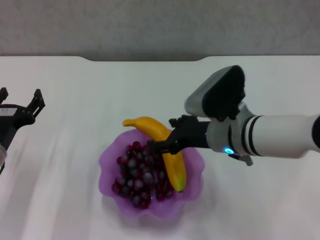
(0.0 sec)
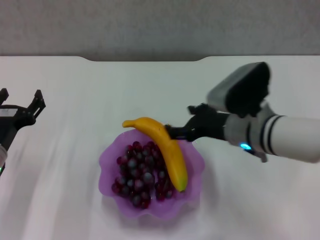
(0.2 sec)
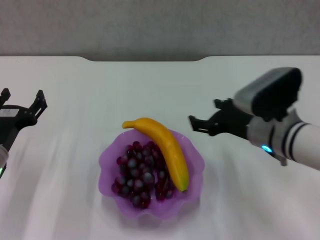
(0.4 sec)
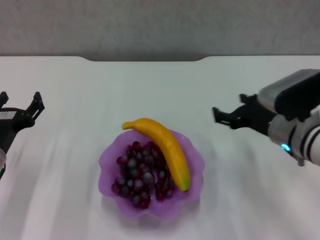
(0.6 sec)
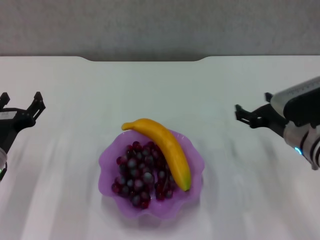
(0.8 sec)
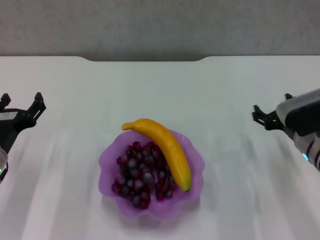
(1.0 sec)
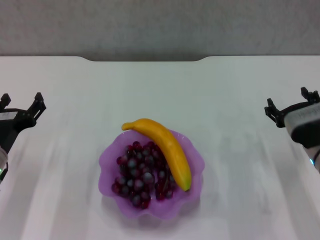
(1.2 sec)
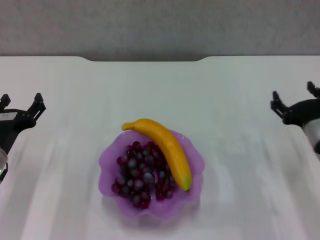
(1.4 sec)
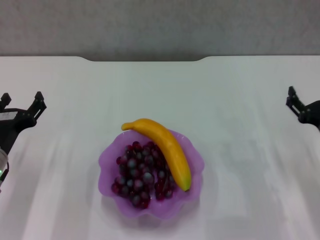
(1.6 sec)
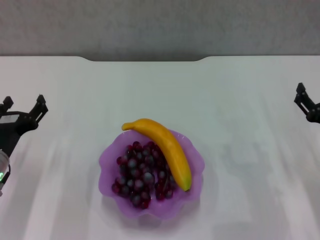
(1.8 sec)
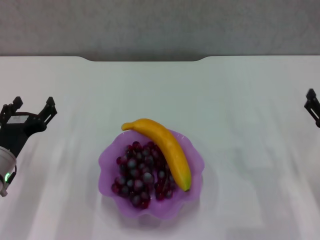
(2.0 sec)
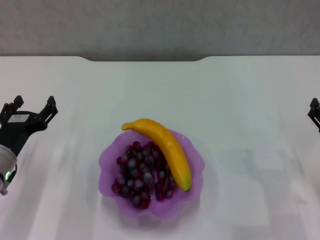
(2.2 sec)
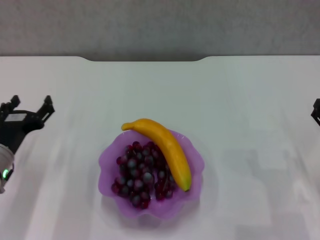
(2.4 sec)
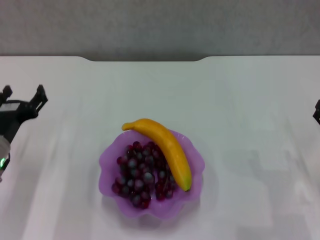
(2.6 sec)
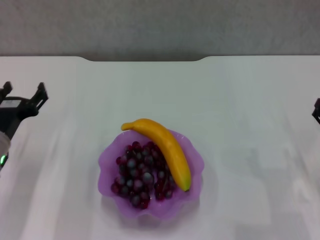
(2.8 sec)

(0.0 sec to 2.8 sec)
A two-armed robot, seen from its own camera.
0.0 sec - 1.4 sec: The right gripper goes some 15 cm to the right.
1.4 sec - 2.8 sec: The right gripper travels to the right by approximately 5 cm.

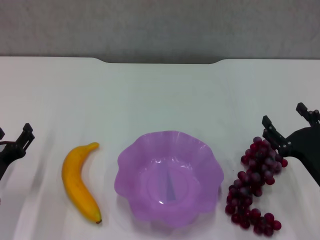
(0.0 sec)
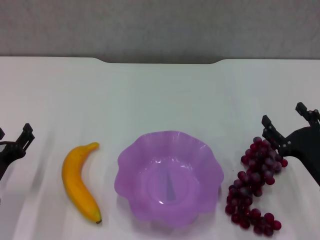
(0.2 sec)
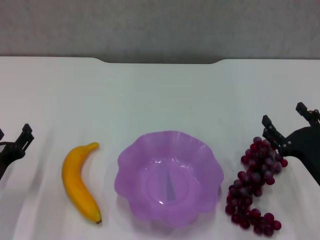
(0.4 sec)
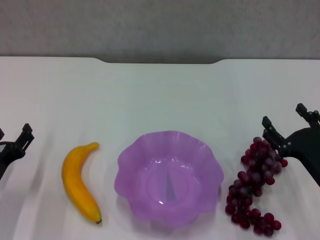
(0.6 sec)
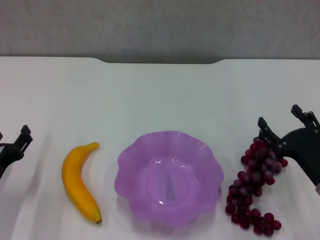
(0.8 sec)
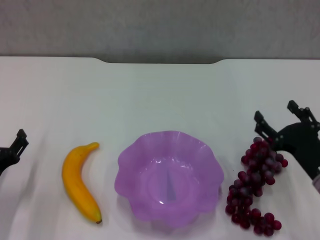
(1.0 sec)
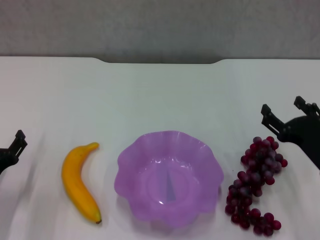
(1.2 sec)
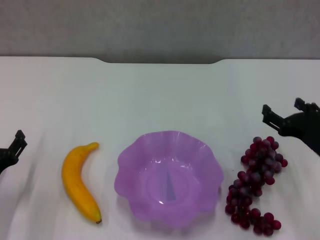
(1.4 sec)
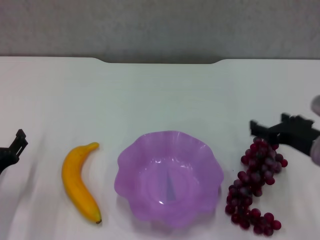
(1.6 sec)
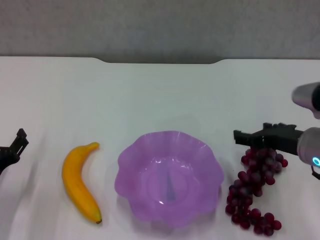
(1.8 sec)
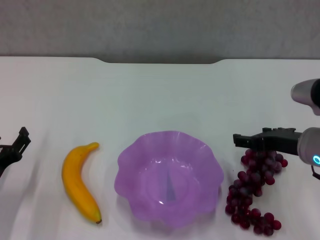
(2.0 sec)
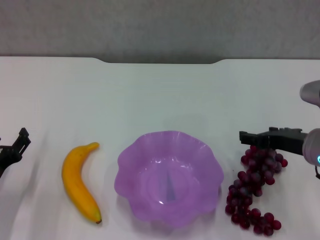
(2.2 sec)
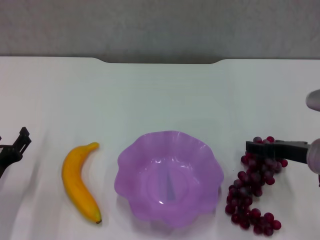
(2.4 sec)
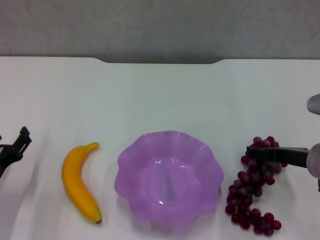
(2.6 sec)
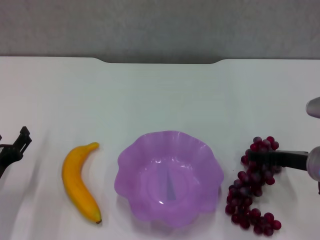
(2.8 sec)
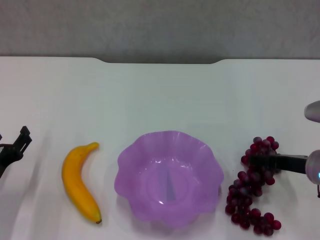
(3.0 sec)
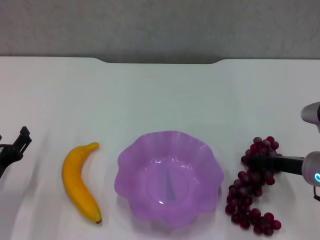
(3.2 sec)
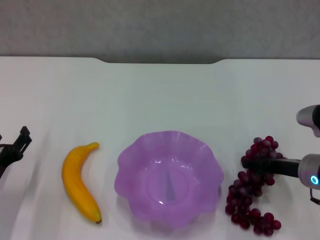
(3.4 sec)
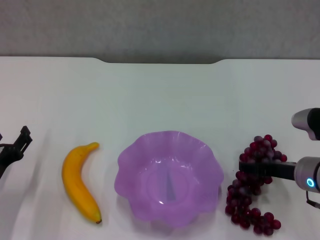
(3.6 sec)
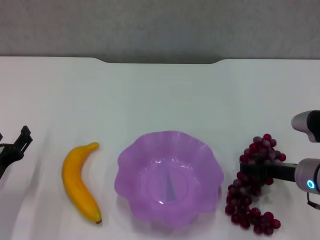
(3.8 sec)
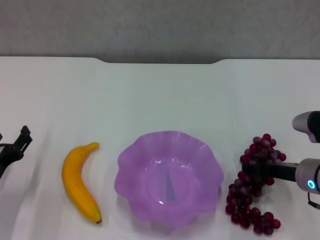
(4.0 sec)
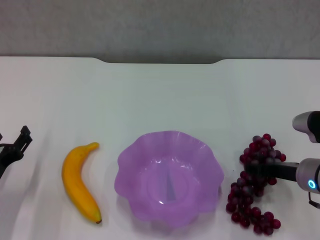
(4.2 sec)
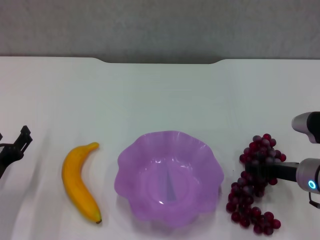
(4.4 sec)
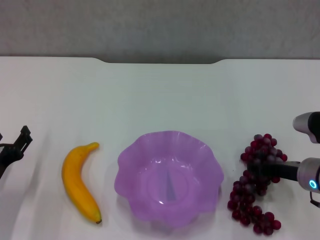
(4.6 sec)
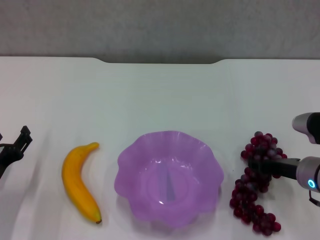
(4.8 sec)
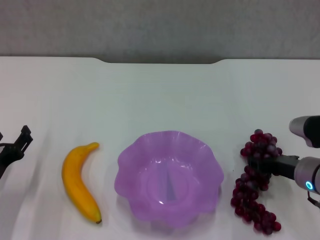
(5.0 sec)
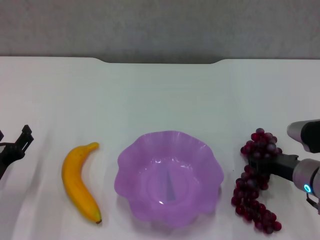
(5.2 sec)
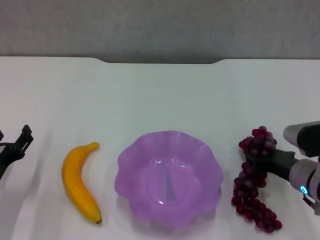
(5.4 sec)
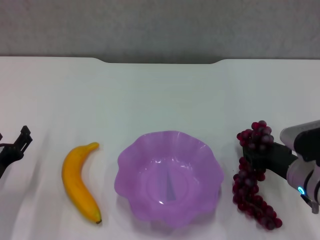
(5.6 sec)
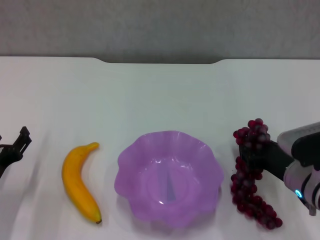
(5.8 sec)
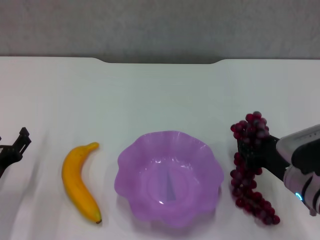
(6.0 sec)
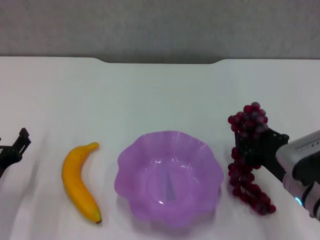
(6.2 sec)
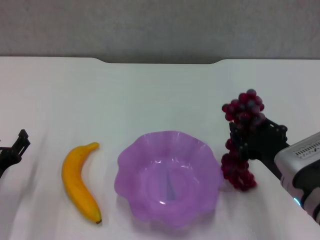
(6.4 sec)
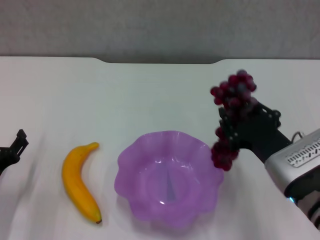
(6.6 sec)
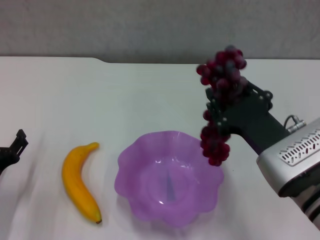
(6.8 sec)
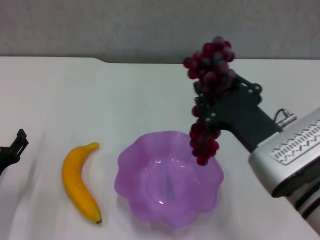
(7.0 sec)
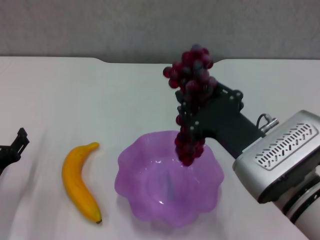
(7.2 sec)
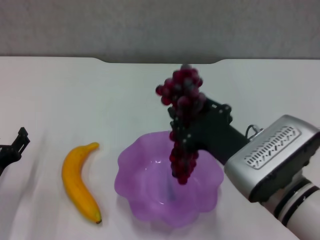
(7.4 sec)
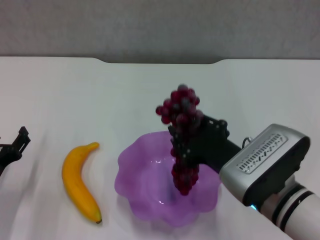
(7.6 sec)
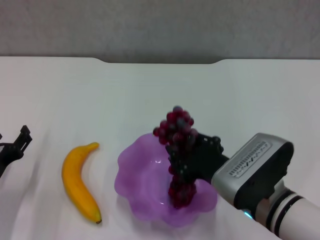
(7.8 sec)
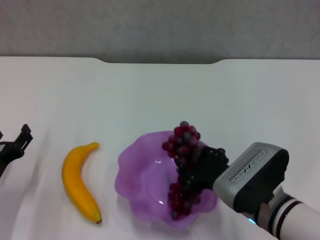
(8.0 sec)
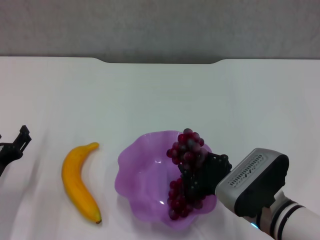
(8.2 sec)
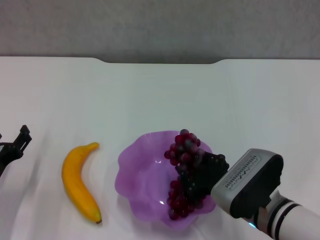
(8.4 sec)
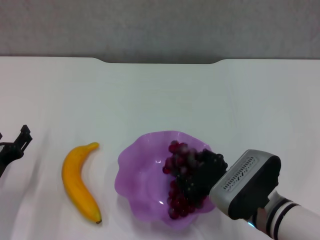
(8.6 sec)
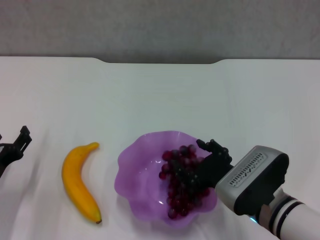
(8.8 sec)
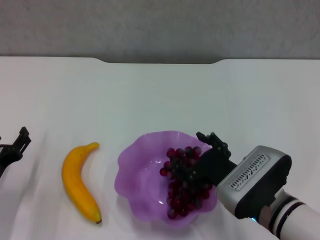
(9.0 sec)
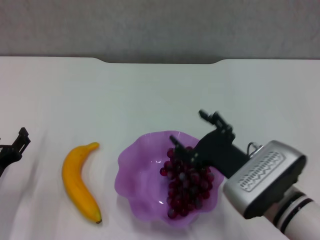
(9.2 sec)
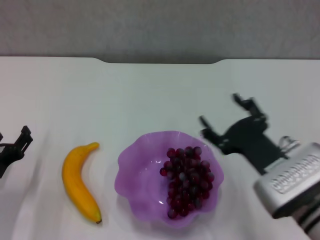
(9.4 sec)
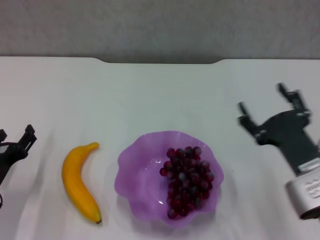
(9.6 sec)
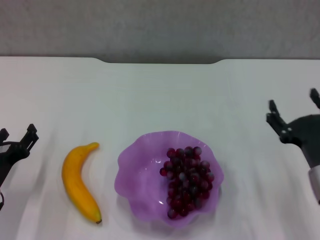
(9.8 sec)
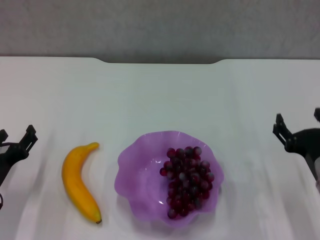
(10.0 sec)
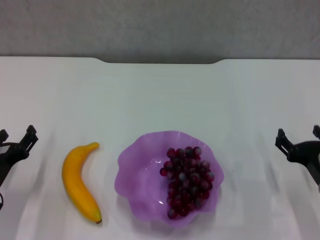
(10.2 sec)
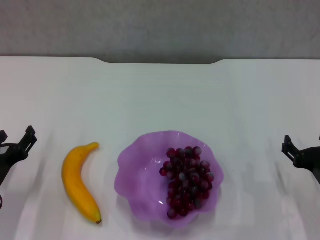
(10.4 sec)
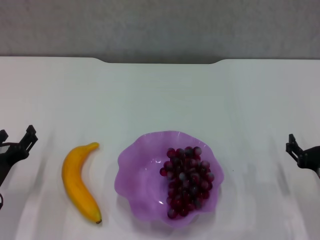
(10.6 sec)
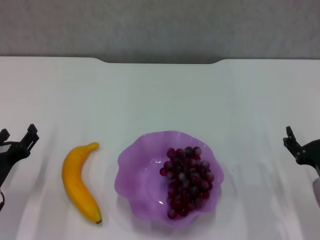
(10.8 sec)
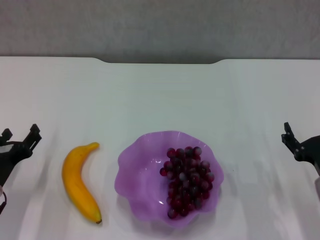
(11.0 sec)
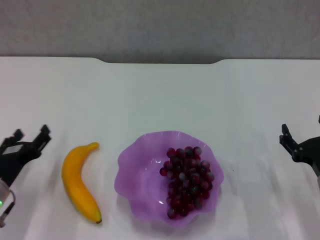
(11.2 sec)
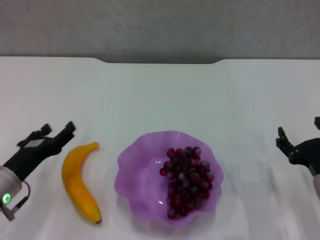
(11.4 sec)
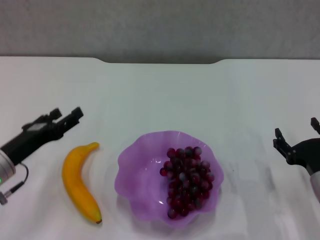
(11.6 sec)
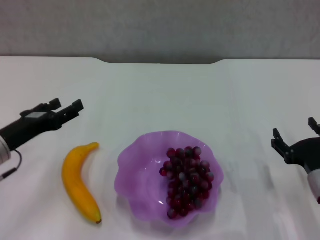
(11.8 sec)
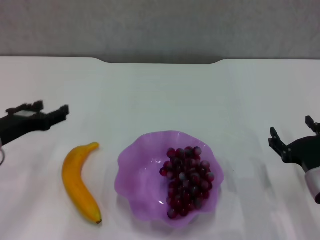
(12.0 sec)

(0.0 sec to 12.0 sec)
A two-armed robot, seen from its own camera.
Step, 0.0 sec - 4.6 sec: Grasp the grape with right gripper.
Step, 4.8 sec - 9.0 sec: Place the grape in the purple plate with right gripper.
0.0 sec - 1.6 sec: The right gripper is displaced upward by approximately 10 cm.
3.0 sec - 4.4 sec: The grippers move only a little.
4.4 sec - 6.0 sec: The right gripper closes up.
6.0 sec - 7.6 sec: The right gripper moves to the left and upward, roughly 10 cm.
7.6 sec - 9.0 sec: The right gripper is displaced downward by about 5 cm, and opens up.
9.0 sec - 10.4 sec: The right gripper moves to the right, roughly 10 cm.
10.4 sec - 12.0 sec: The left gripper is displaced upward and forward by approximately 10 cm.

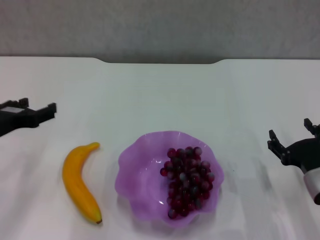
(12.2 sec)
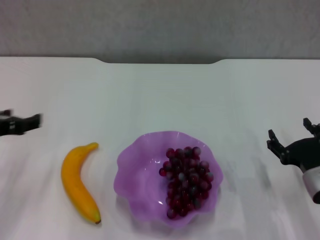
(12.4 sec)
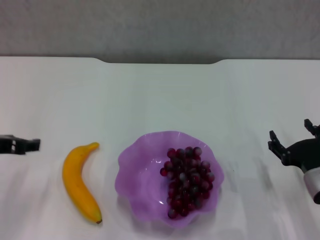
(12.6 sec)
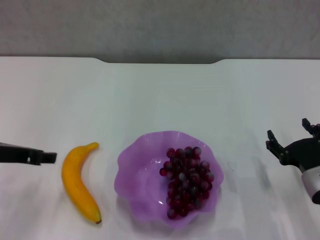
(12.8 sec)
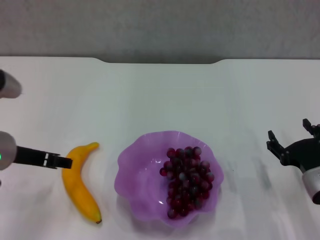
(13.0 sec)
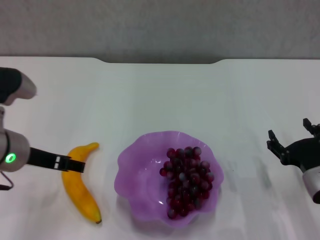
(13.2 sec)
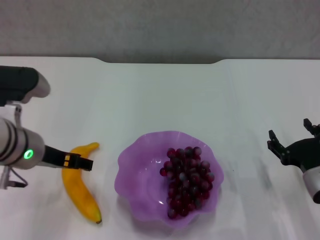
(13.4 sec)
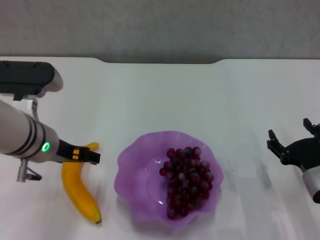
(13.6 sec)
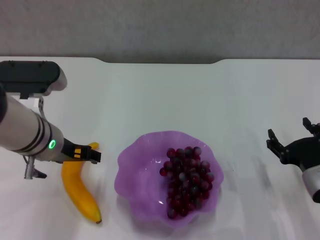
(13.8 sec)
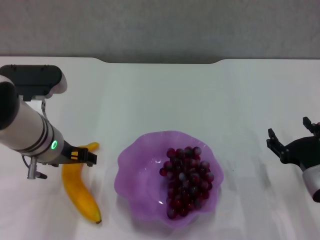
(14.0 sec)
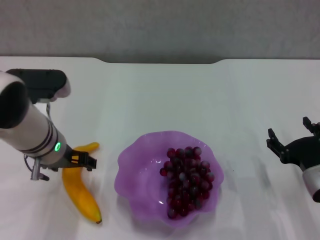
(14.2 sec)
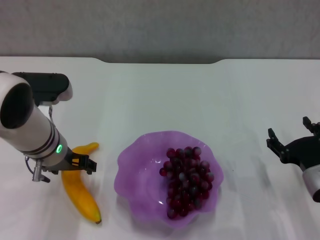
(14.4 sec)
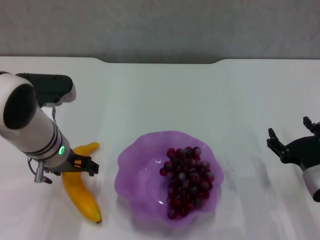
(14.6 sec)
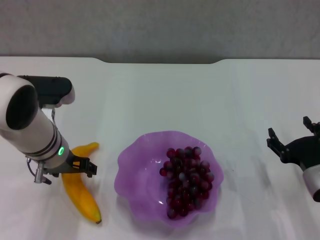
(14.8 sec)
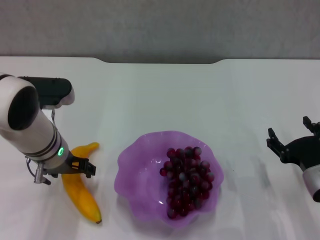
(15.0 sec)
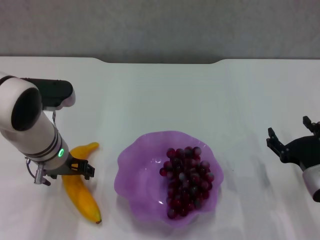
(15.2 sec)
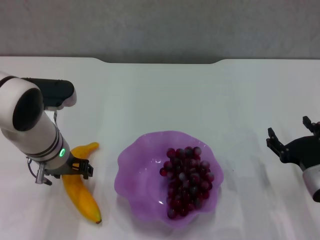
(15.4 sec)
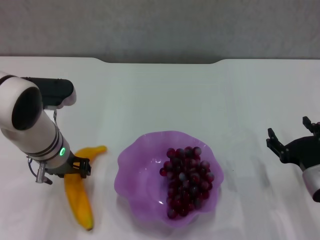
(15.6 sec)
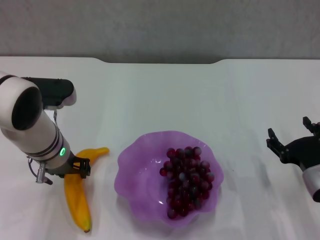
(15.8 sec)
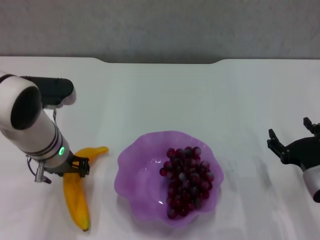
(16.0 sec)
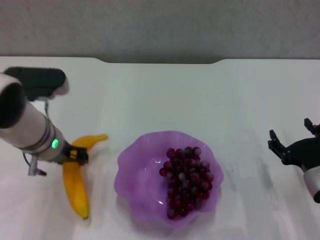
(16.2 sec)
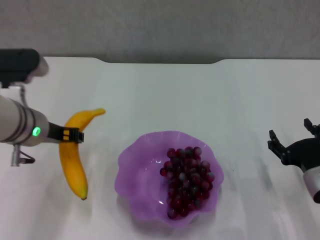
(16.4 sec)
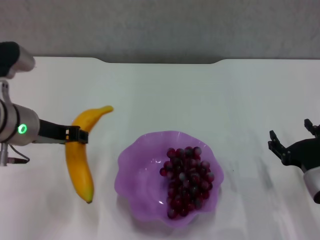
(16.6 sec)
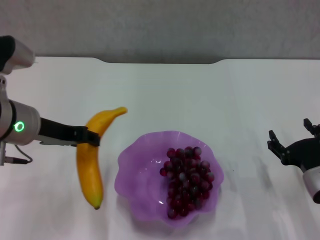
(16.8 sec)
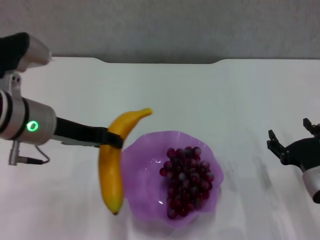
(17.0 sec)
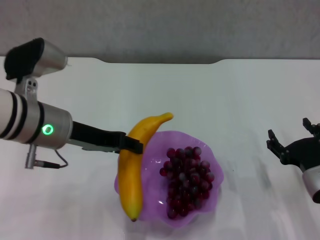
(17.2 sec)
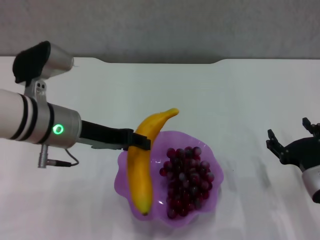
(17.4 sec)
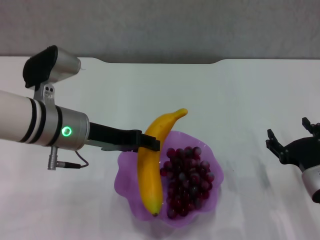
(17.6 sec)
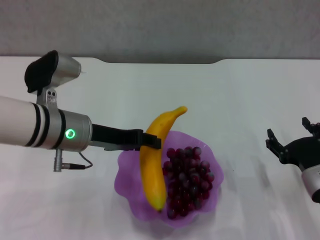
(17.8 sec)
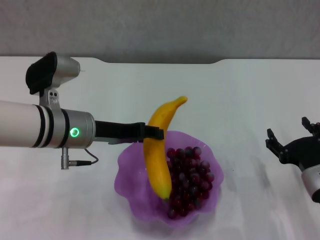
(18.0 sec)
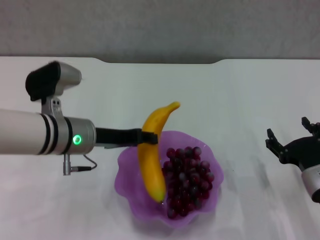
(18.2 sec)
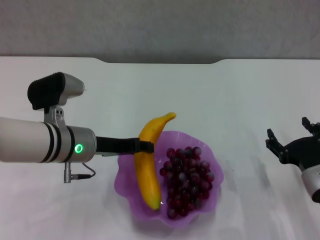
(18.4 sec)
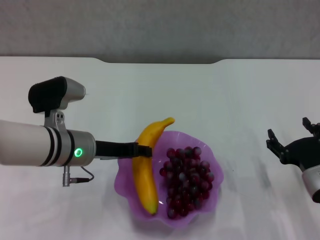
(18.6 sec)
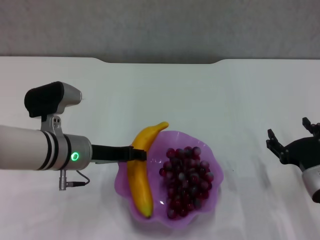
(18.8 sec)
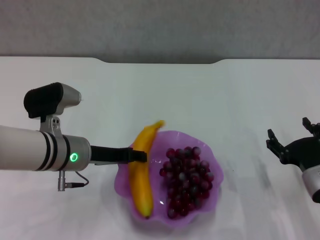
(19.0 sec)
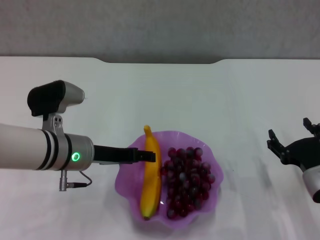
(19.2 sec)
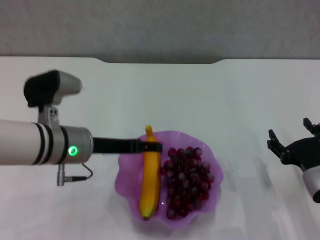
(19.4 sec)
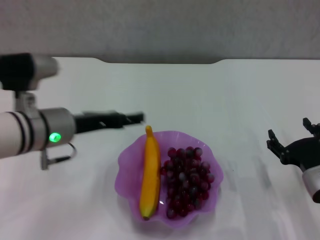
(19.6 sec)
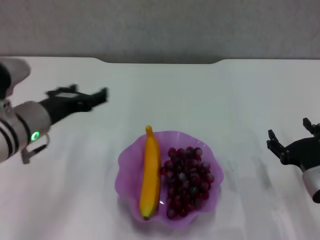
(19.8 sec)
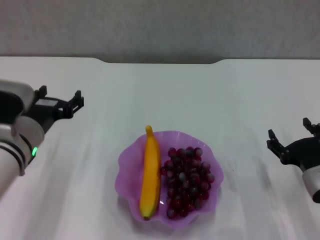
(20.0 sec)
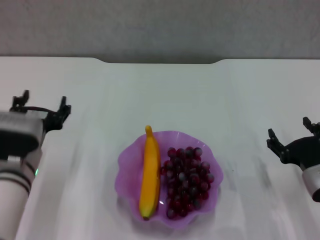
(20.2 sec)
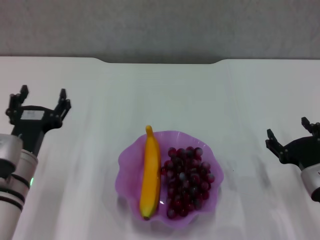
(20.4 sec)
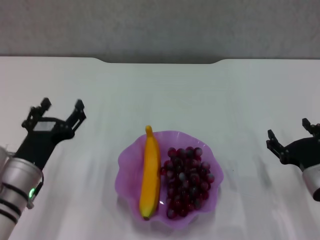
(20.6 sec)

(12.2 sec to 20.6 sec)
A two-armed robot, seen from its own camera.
Step, 12.2 sec - 15.6 sec: Grasp the banana with left gripper.
Step, 16.0 sec - 19.4 sec: Place the banana in the purple plate with left gripper.
12.2 sec - 13.6 sec: The left gripper travels to the right by approximately 10 cm.
13.6 sec - 15.0 sec: The left gripper moves some 5 cm.
15.0 sec - 16.4 sec: The left gripper moves some 5 cm, and closes its fingers.
17.8 sec - 19.2 sec: The grippers make only small movements.
19.2 sec - 20.6 sec: The left gripper shifts roughly 10 cm backward, to the left and downward, and opens its fingers.
